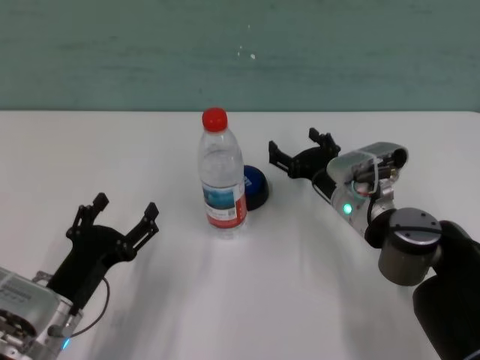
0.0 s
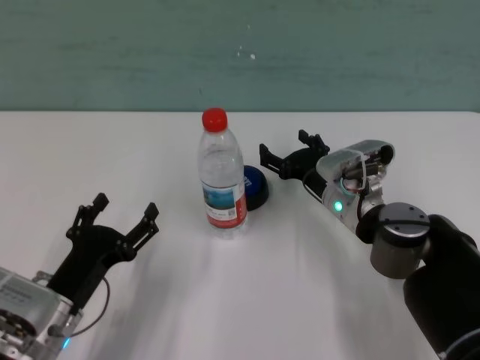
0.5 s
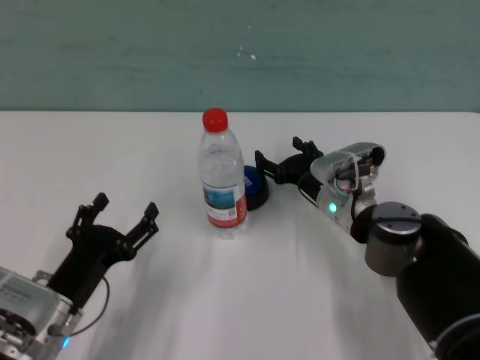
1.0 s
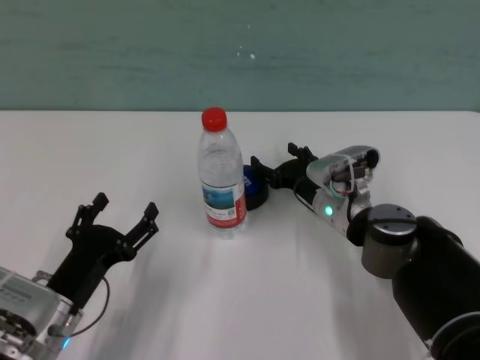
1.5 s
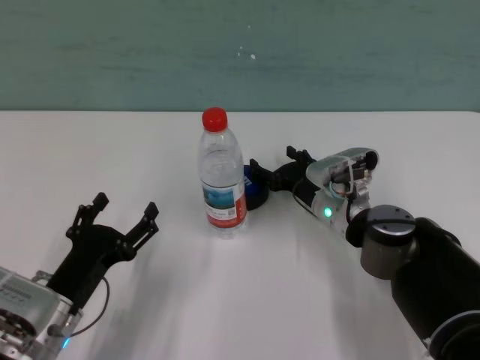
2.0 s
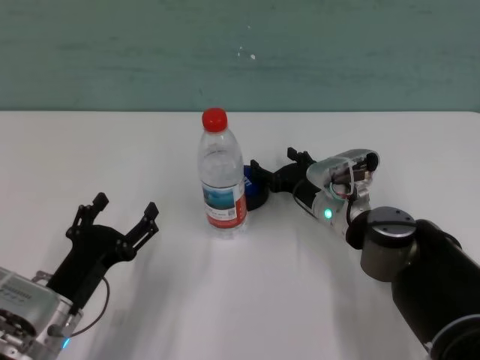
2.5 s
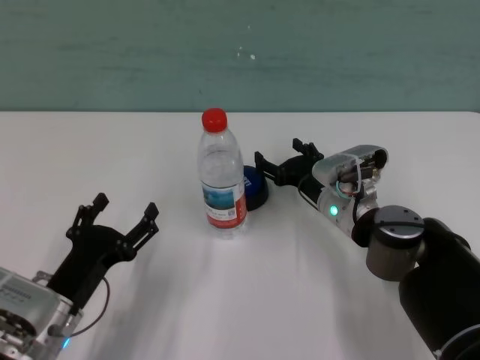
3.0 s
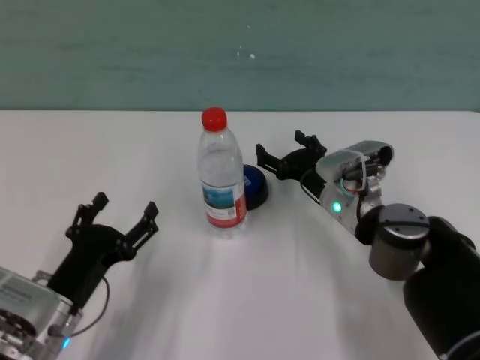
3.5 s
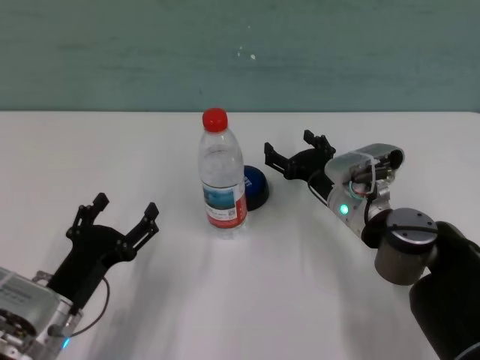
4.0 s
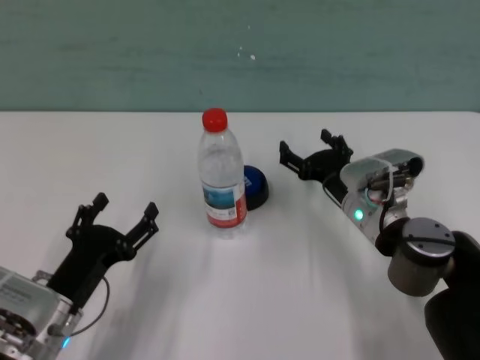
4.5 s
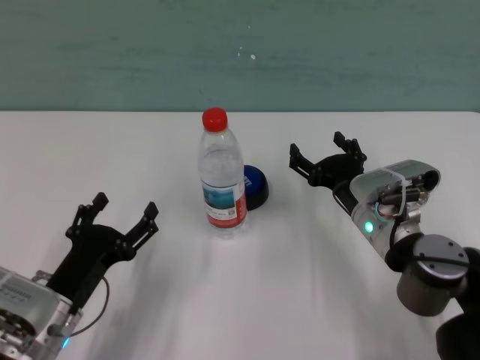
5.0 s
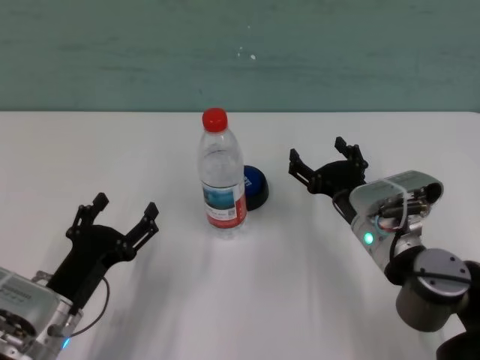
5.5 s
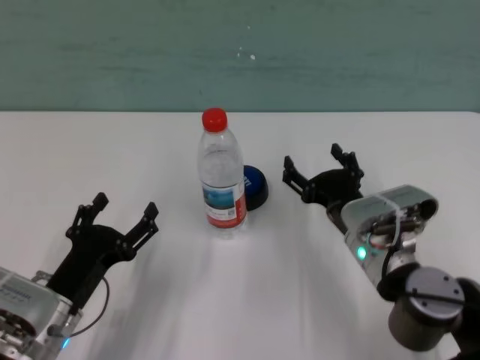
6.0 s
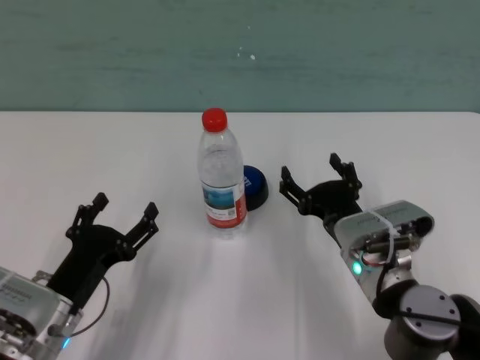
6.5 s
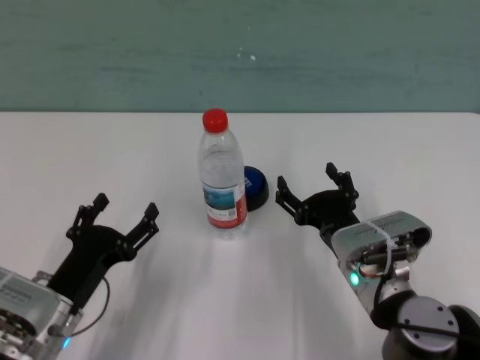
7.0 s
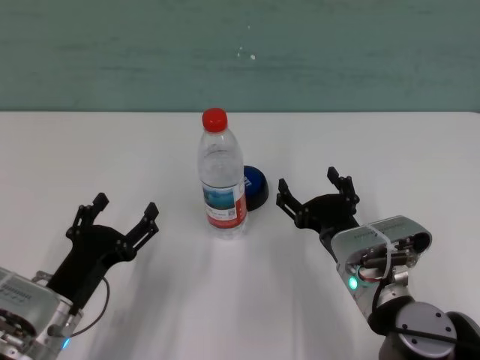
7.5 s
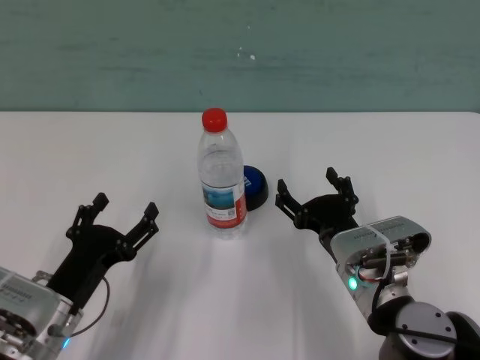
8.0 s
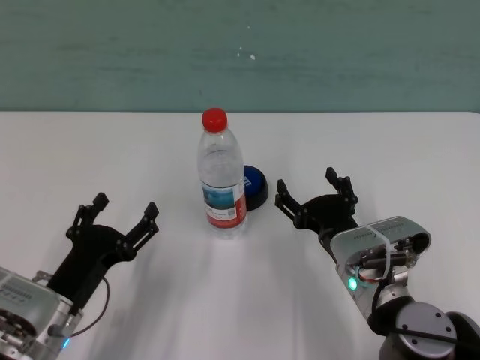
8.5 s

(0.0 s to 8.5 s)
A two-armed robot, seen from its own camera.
Task of the whole recording: after avoiding the water bottle on the table, press the button.
Step, 0.0 s - 3.0 s: Press the button blocked by the bottle with right gripper.
